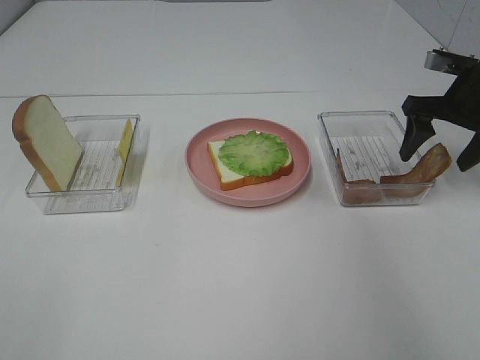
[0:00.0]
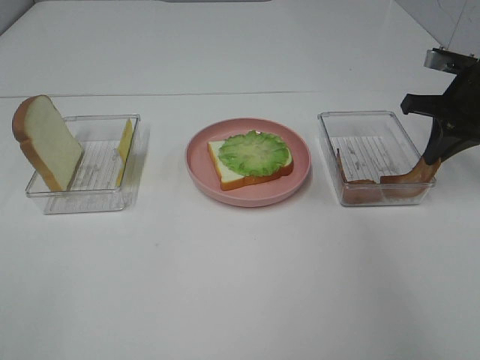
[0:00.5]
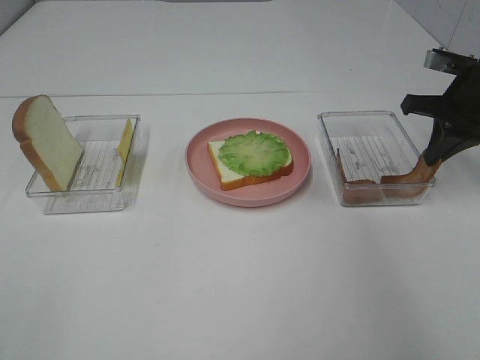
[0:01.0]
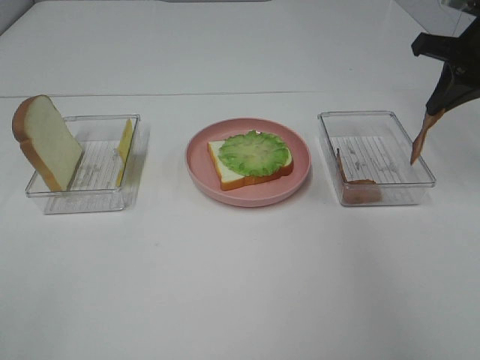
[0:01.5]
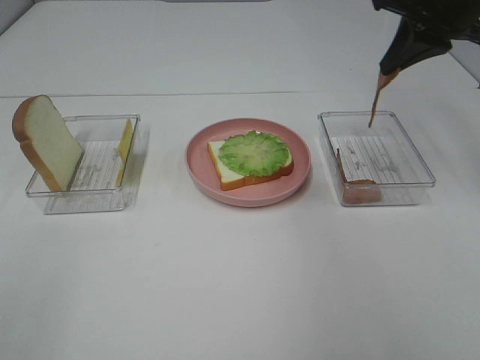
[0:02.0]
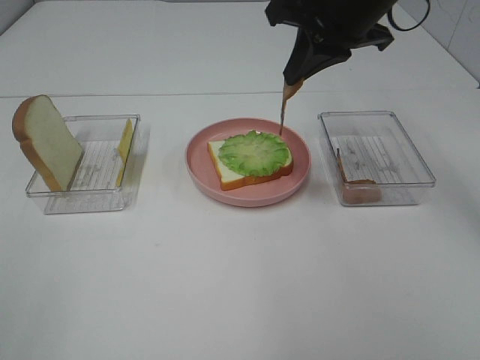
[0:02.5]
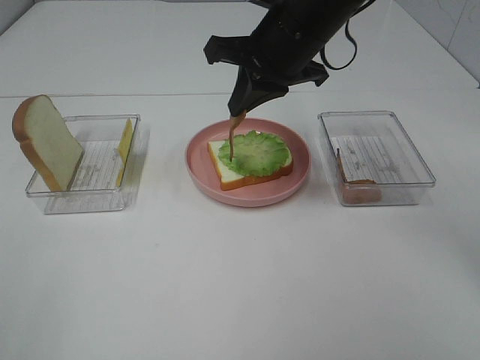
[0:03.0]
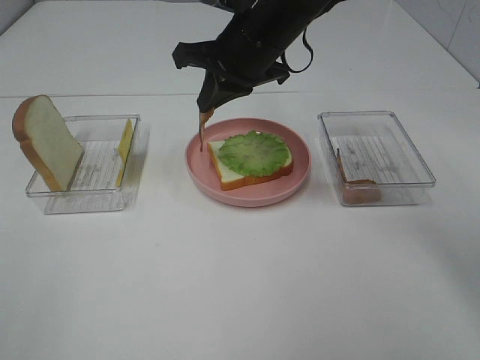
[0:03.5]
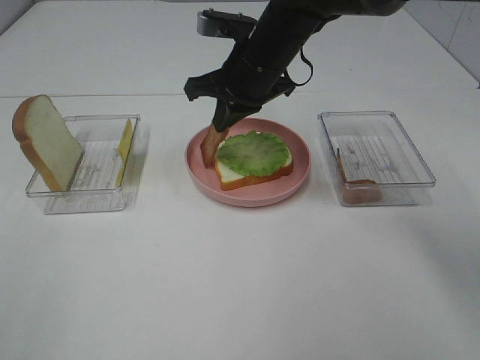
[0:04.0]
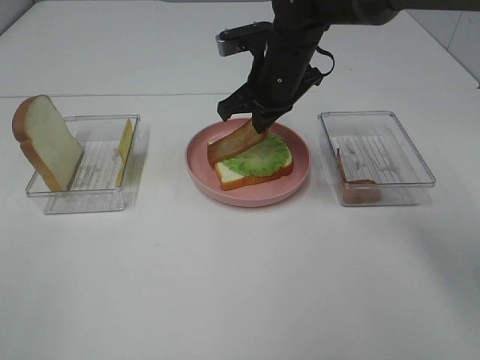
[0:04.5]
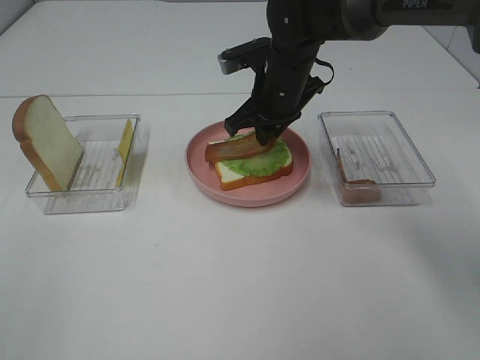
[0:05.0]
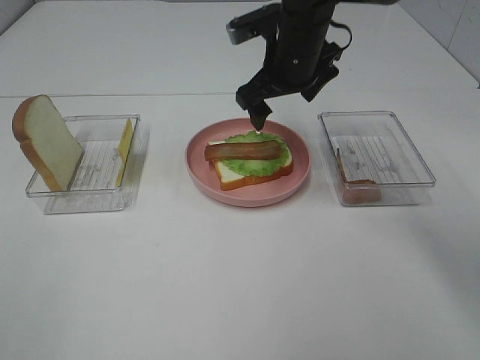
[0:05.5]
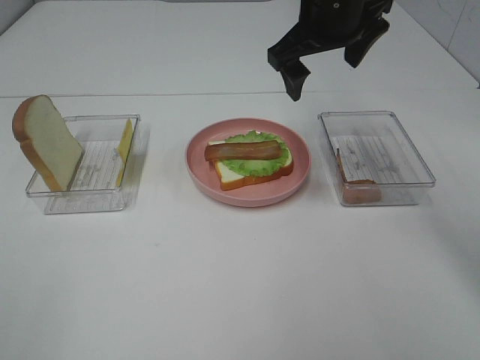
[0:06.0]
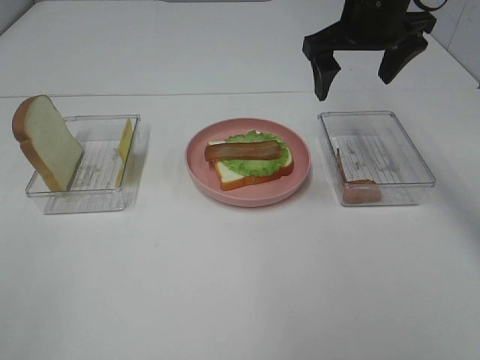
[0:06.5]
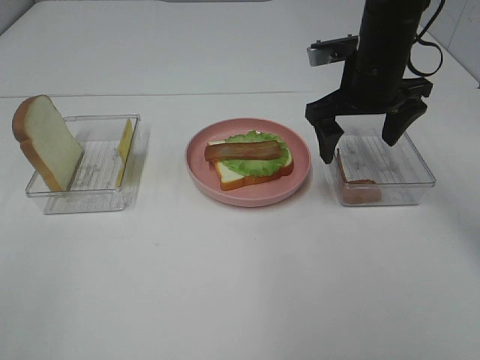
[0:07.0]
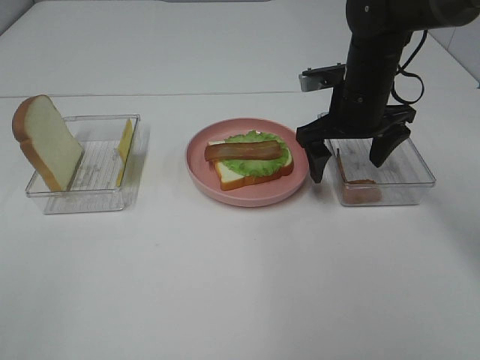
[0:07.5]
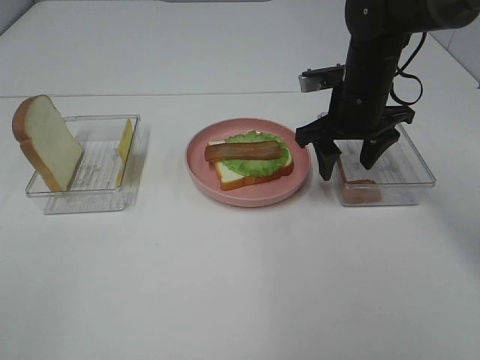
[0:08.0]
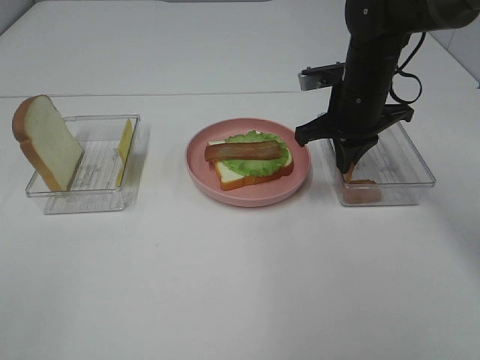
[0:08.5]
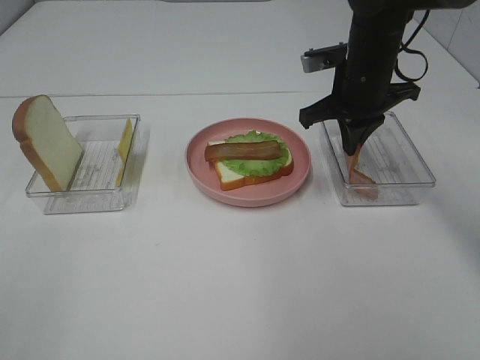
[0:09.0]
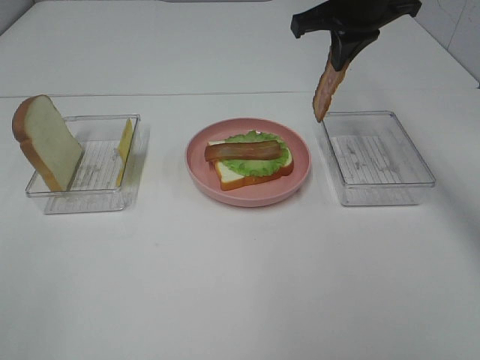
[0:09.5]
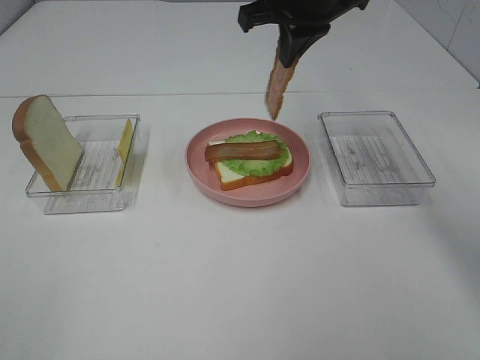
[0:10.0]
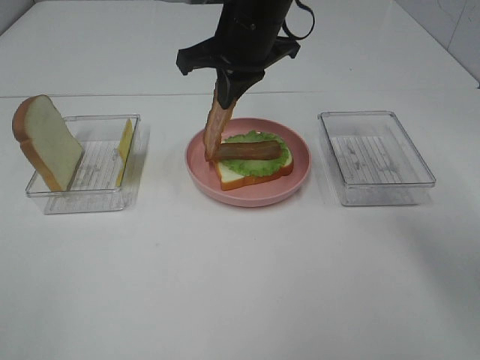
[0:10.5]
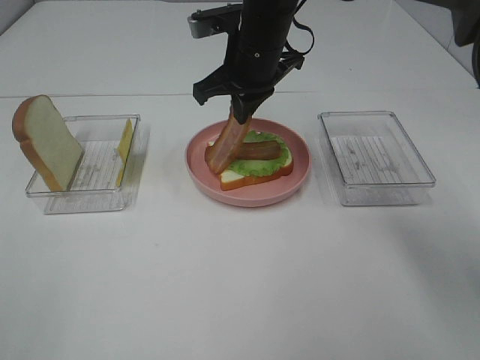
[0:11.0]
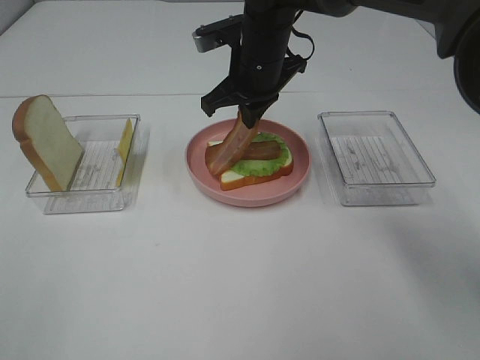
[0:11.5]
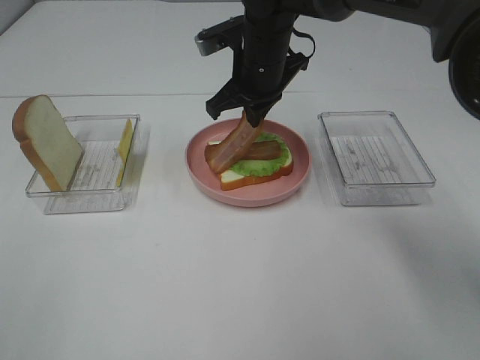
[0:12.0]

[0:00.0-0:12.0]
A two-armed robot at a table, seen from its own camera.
Task of the whole recording: Make sandwiches.
Step, 0:01.0 to 0:05.5: Right hand:place bacon on lettuce slice.
Step, 0:06.0 to 0:09.0: Right hand:grab the bacon.
0:00.0 to 0:02.0: The right gripper travels upward and to the left by some 15 cm, and closes up.
0:02.0 to 0:04.0: The right gripper moves to the left and downward, roughly 20 cm.
0:04.0 to 0:06.0: The right gripper shifts some 10 cm upward and to the right, and opens its fingers.
0:06.0 to 0:08.0: The right gripper goes roughly 10 cm downward.
0:08.0 to 0:10.0: The right gripper shifts roughly 15 cm upward and to the left, and closes.
0:10.0 to 0:12.0: The right gripper heads downward, covering roughly 10 cm.

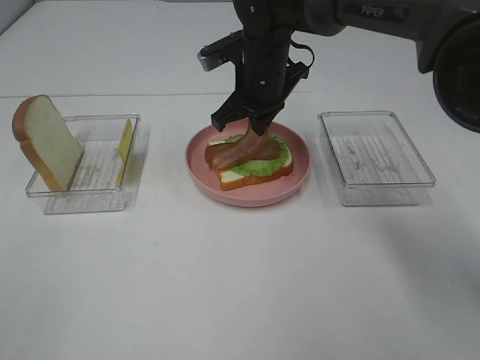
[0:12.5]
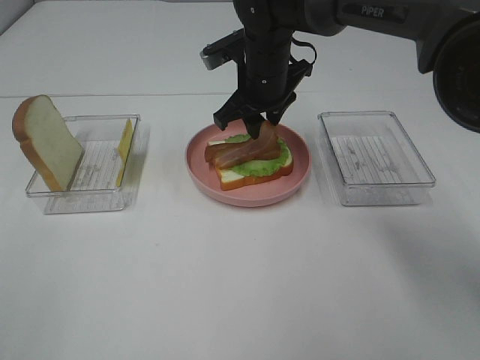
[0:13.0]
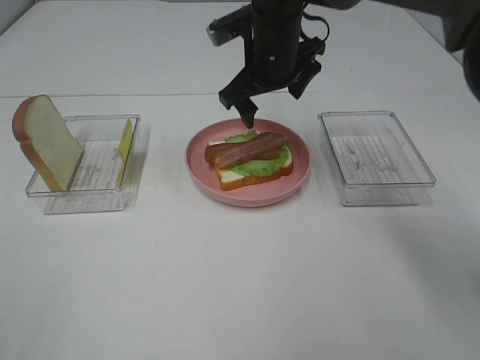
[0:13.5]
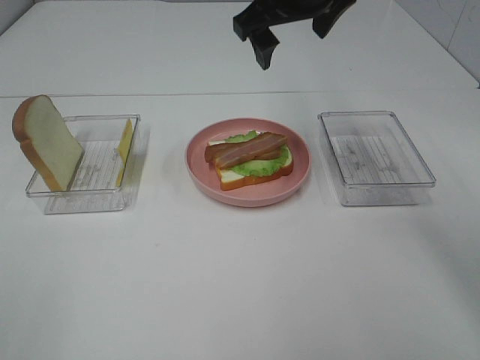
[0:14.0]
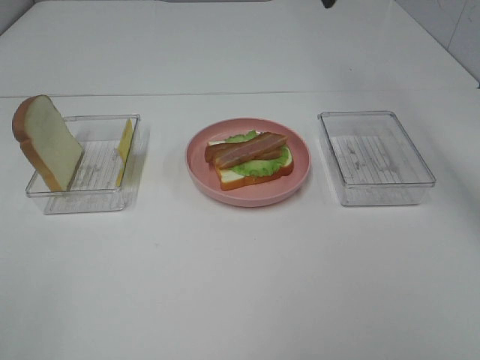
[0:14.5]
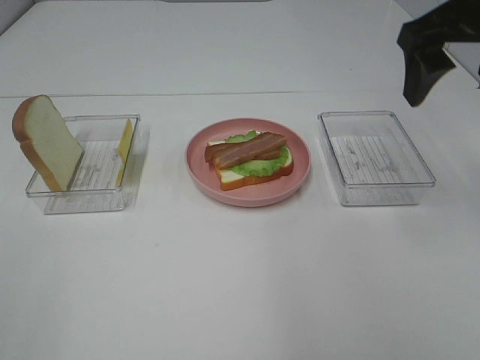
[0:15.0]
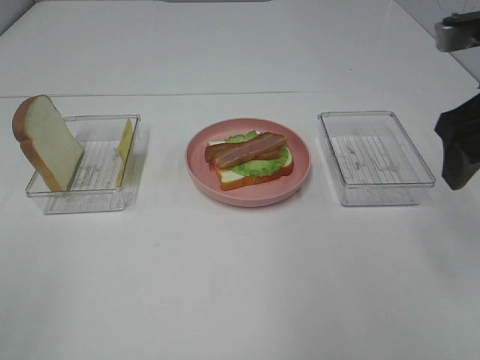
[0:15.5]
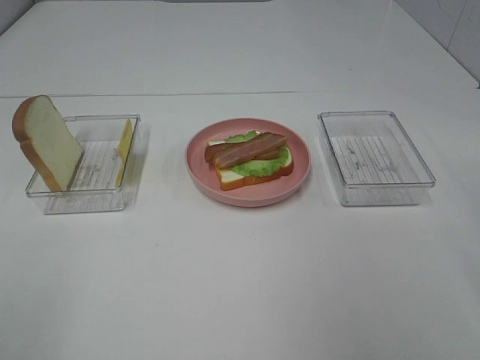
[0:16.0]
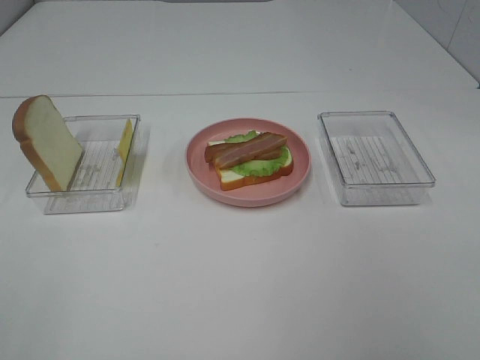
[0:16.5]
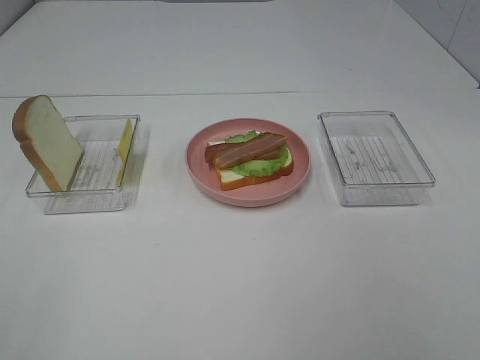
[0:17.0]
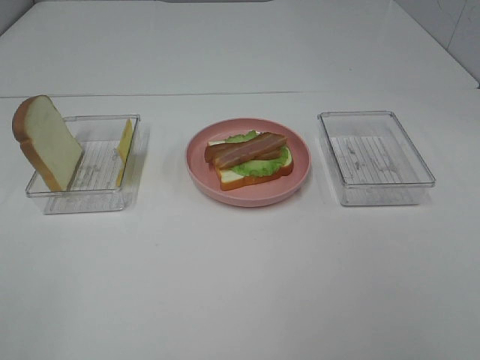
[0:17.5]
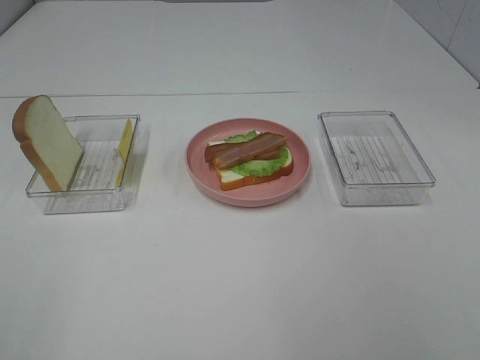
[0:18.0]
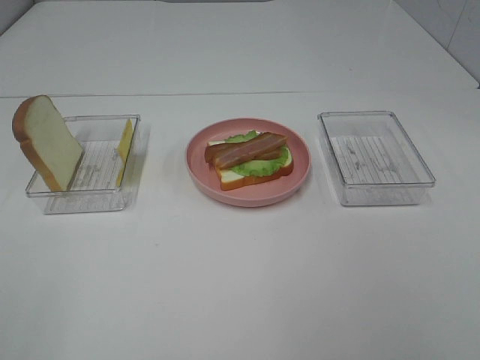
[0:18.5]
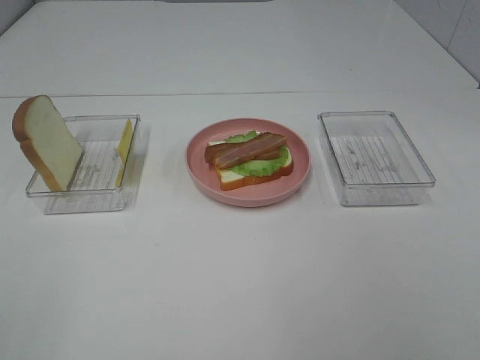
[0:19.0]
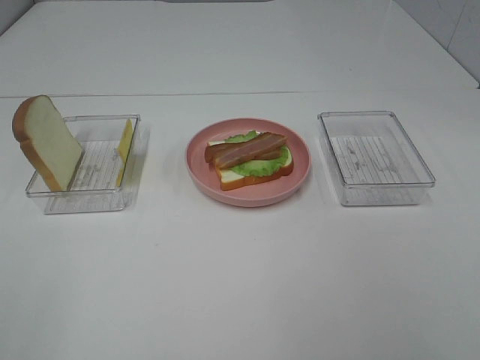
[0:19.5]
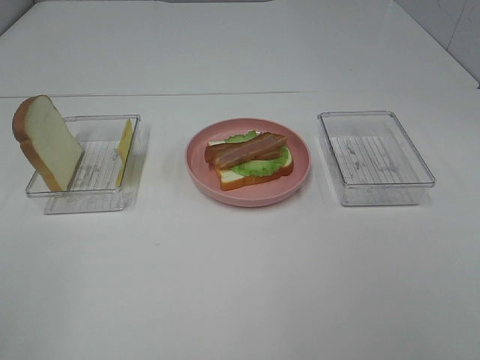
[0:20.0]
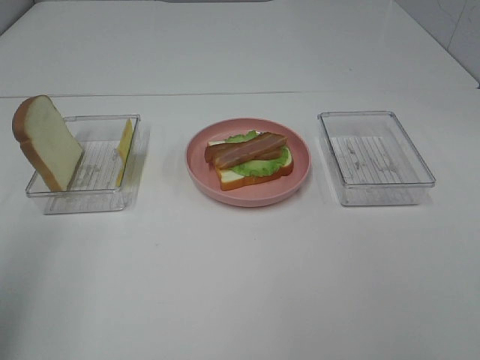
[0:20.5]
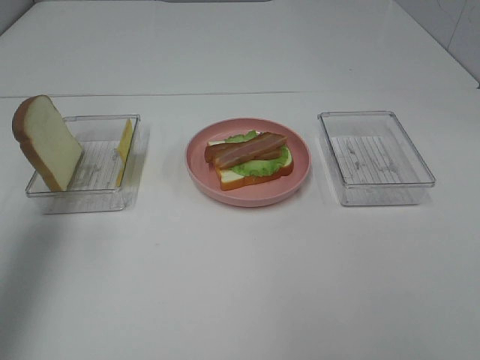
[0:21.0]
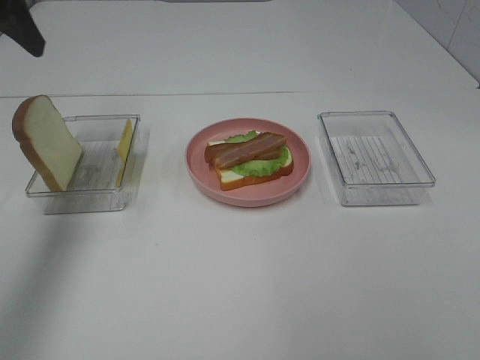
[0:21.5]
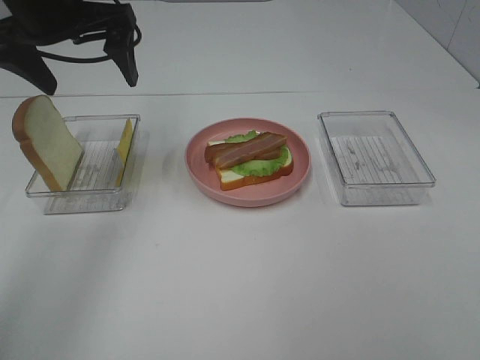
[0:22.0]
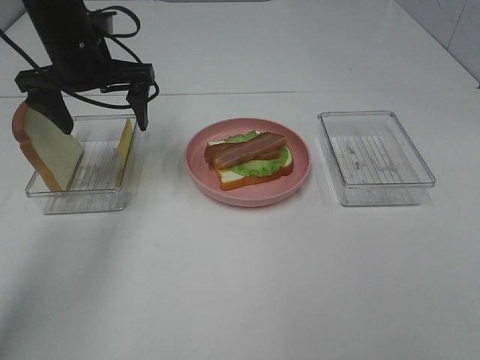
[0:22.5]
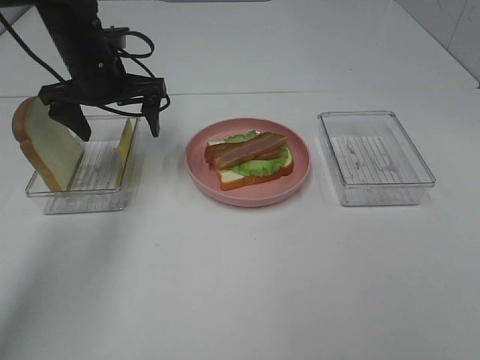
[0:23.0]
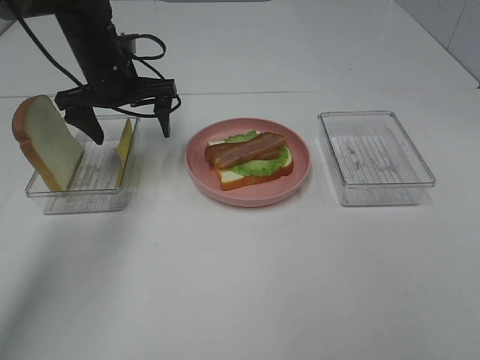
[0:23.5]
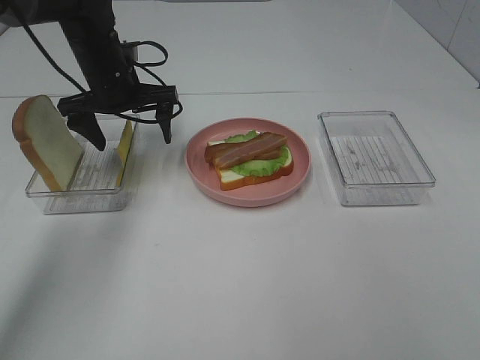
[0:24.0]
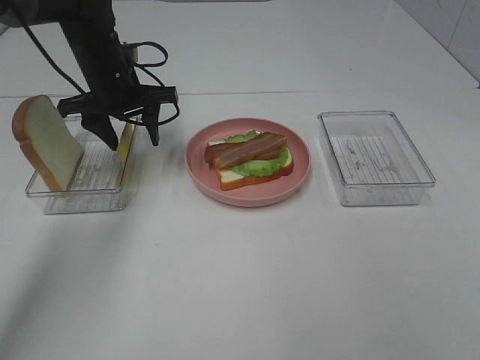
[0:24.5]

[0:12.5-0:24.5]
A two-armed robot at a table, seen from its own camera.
Task of the whole recording: Make sandwiches.
0:12.5 to 0:14.5: The right gripper moves upward and to the right, about 25 cm, and opens up.
0:14.5 to 0:16.5: The right gripper travels backward and to the right by some 35 cm.
0:18.5 to 0:20.5: The left gripper is displaced forward and upward by about 15 cm.
0:20.5 to 0:22.5: The left gripper shifts about 35 cm forward, downward and to the right.
0:22.5 to 0:24.5: The left gripper travels downward by approximately 5 cm, and closes.

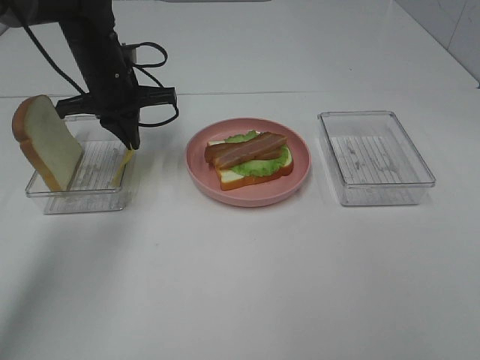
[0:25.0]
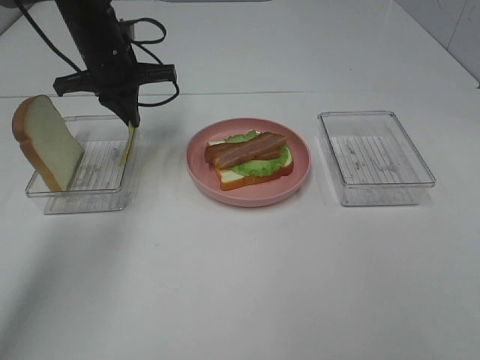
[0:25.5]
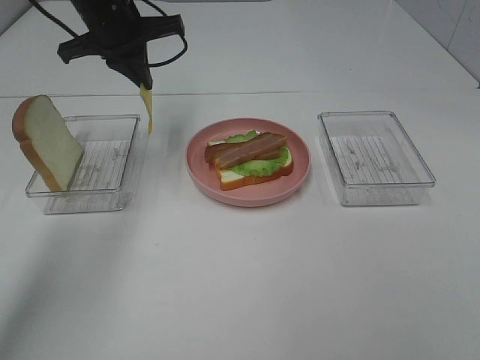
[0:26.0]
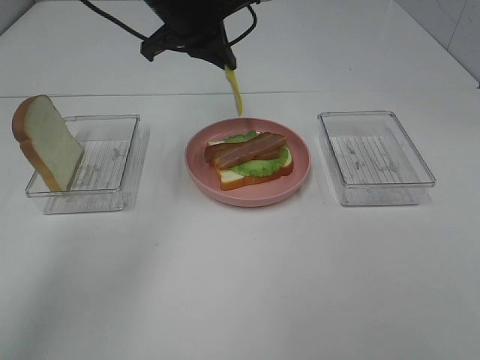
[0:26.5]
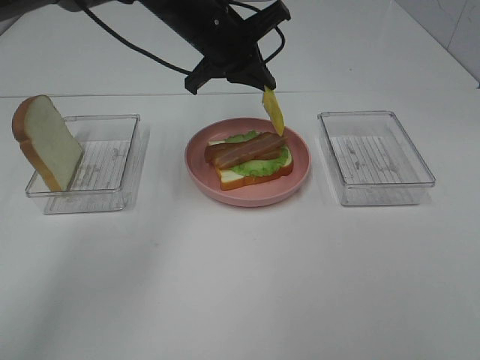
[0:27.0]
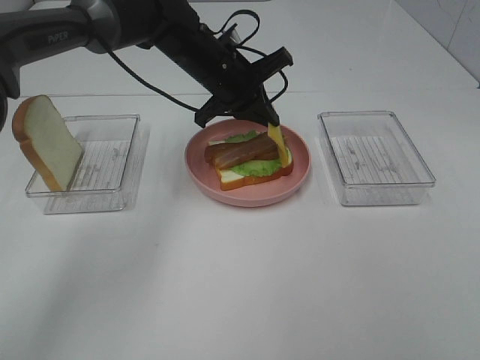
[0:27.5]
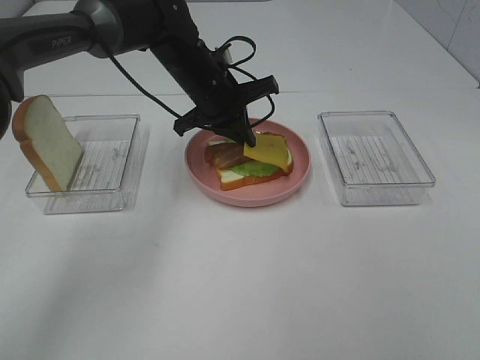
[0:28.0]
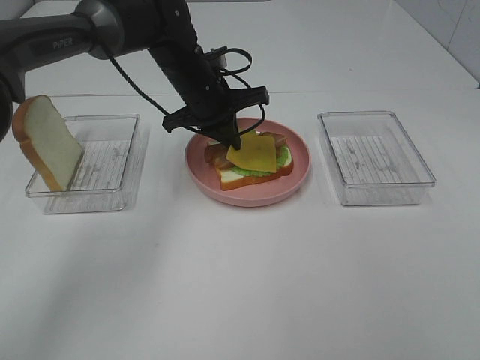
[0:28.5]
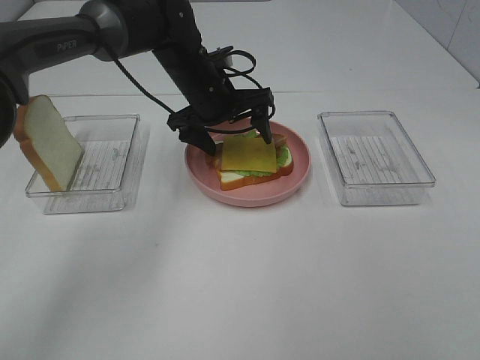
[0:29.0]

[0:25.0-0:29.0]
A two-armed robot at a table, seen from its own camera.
Task of the whole recording: Make sandwiches.
0:25.0 to 0:27.0: The left gripper goes some 15 cm to the right and upward.
0:27.0 to 0:29.0: The left gripper shifts roughly 10 cm downward, and opens.
